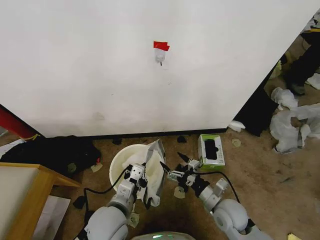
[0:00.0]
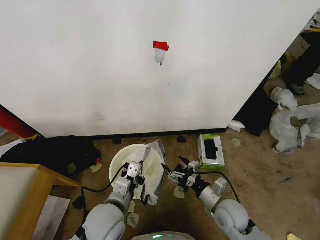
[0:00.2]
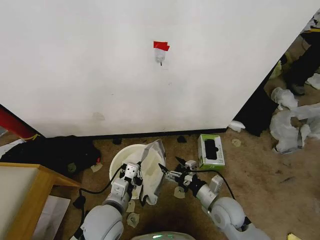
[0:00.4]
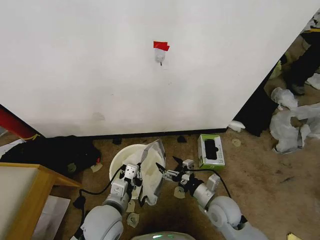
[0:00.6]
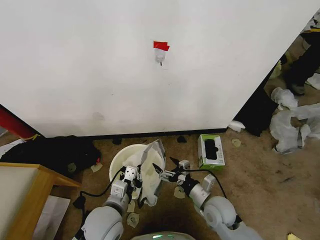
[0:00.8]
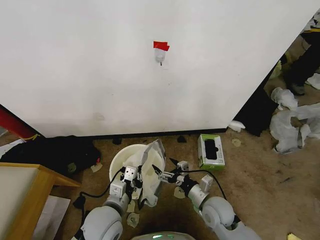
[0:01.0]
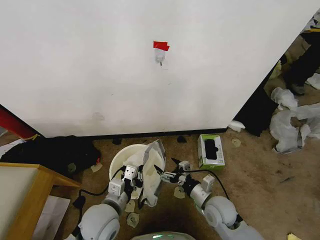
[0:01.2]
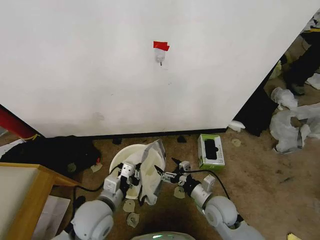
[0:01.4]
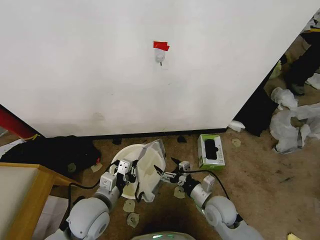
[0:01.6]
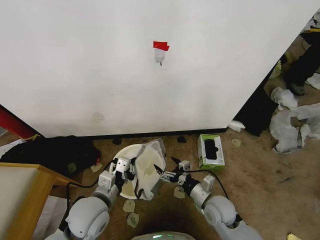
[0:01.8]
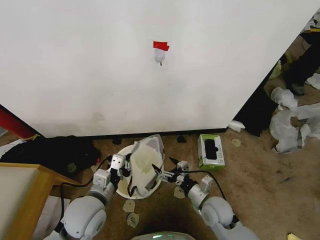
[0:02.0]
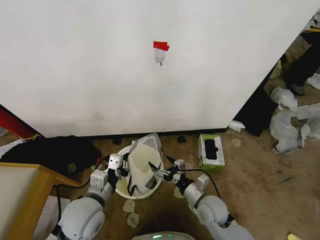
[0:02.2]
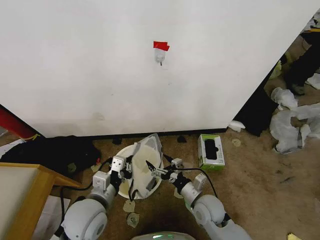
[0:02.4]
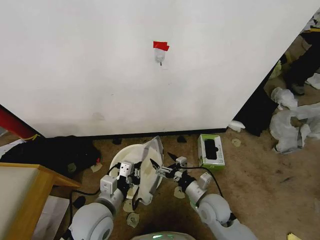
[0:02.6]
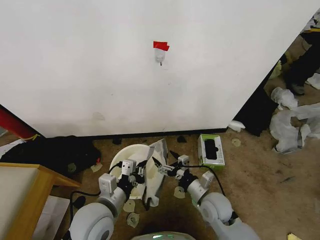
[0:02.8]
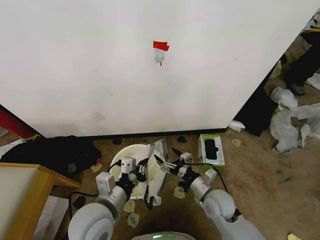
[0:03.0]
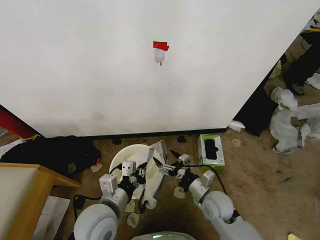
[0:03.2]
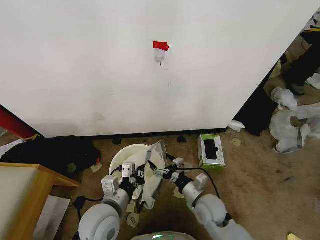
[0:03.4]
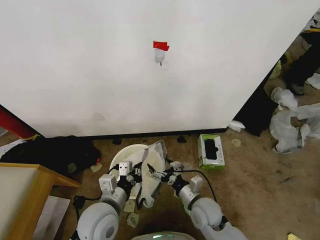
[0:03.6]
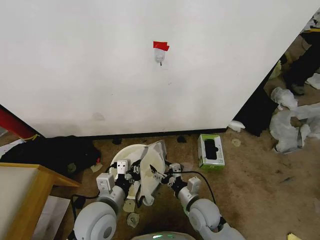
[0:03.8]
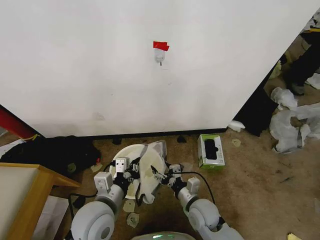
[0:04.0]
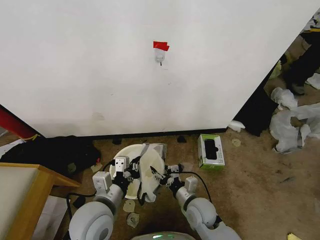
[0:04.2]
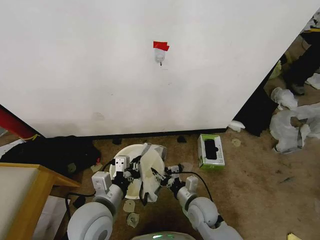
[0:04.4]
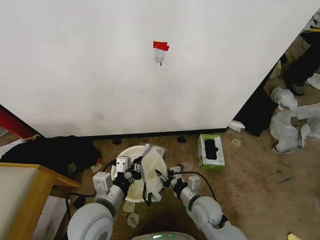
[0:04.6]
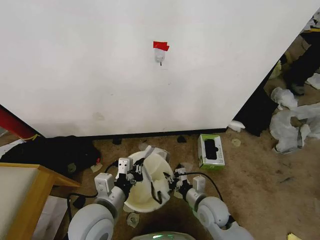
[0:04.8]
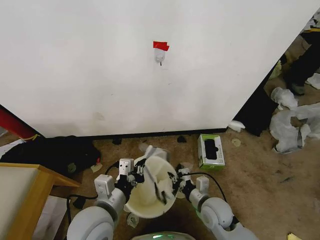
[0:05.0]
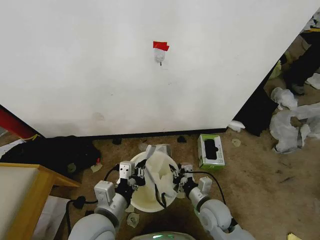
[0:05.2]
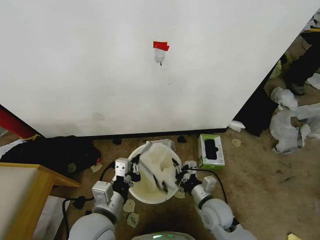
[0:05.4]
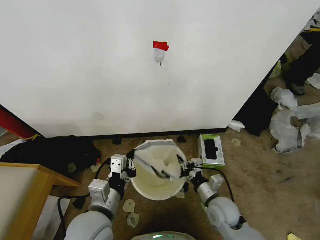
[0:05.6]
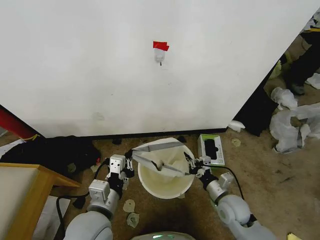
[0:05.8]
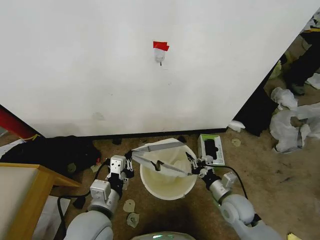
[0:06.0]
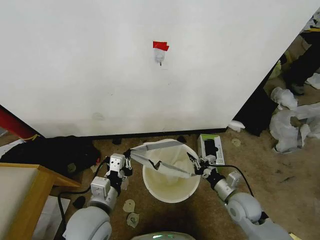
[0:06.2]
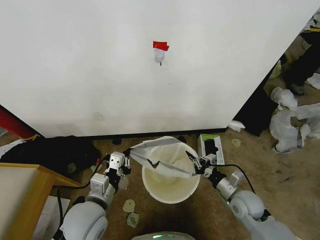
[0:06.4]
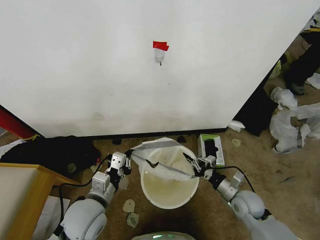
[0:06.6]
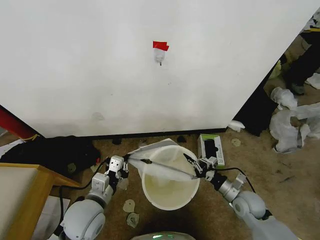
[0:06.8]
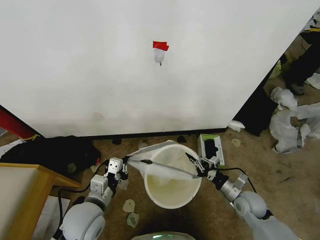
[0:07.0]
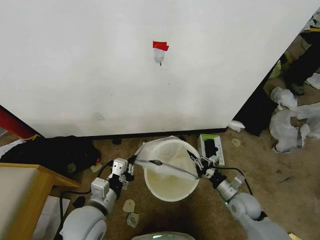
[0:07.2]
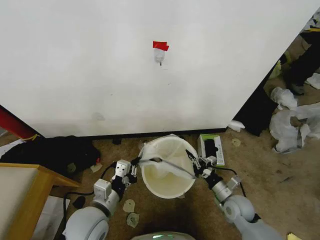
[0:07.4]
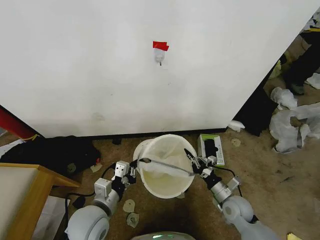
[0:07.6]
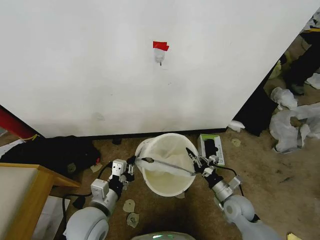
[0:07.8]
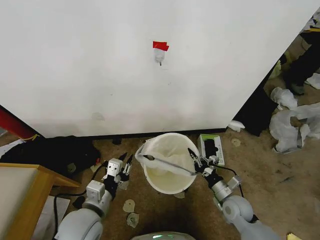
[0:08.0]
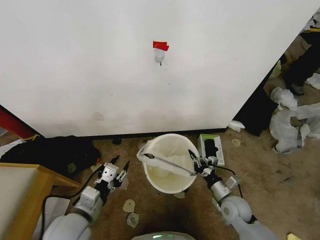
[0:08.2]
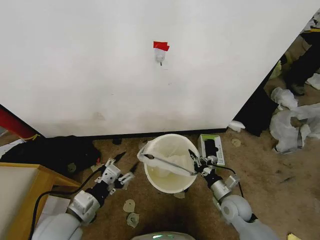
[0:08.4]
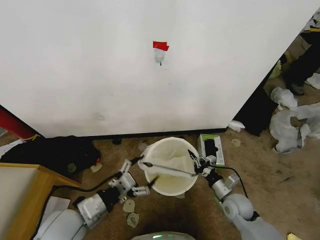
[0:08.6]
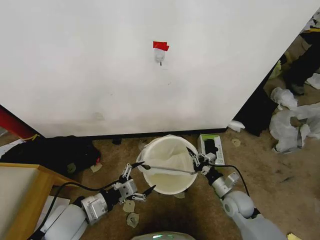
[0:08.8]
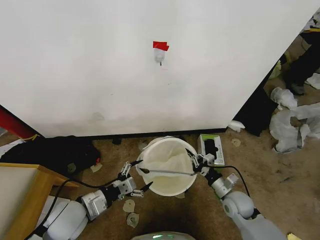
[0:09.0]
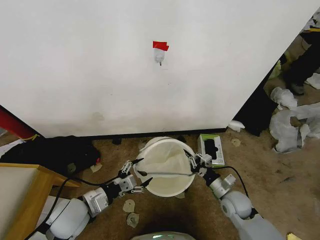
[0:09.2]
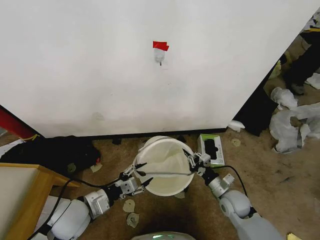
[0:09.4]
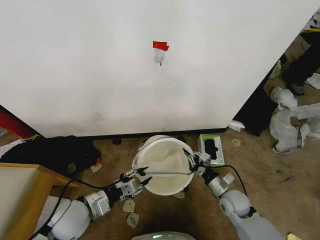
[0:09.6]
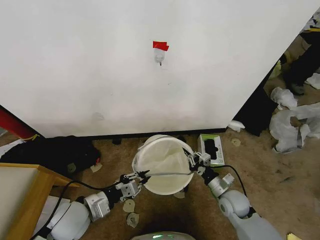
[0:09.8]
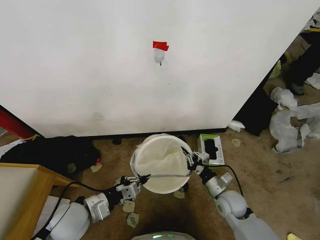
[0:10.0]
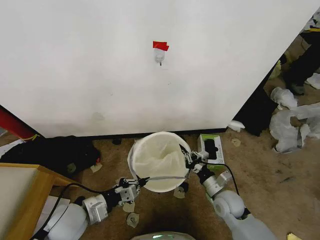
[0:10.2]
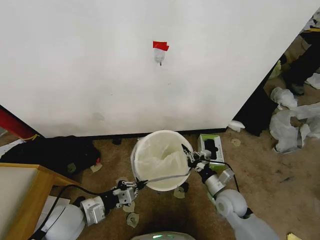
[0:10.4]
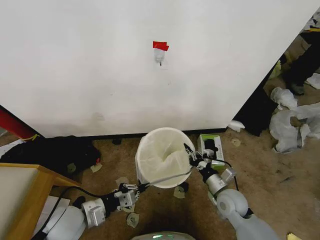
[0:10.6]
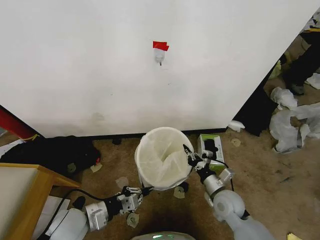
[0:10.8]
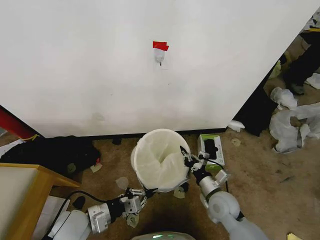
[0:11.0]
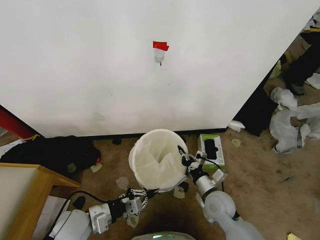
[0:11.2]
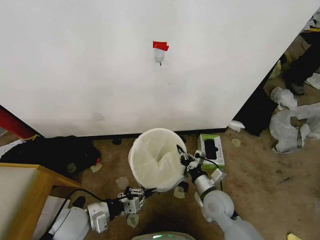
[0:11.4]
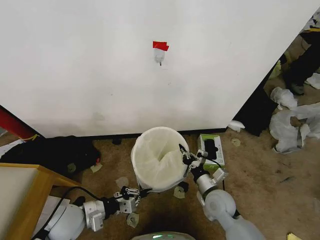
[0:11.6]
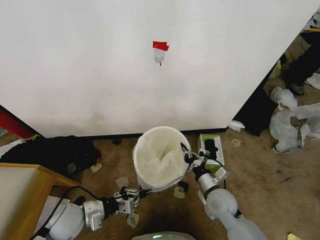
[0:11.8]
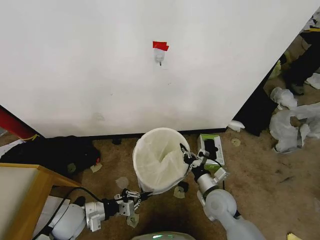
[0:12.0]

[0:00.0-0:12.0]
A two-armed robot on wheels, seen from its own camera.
Task of the whole recording: Place the garbage bag over the trash bin.
0:00.0 to 0:01.6: The left gripper moves to the left, about 5 cm.
0:01.6 to 0:03.0: The left gripper changes place by approximately 5 cm.
0:03.0 to 0:04.4: The right gripper moves some 5 cm, and closes.
0:04.4 to 0:06.0: The right gripper travels to the right by some 10 cm, and closes its fingers.
0:06.0 to 0:07.6: The left gripper changes place by about 5 cm.
0:07.6 to 0:09.0: The left gripper moves to the left, approximately 5 cm, and opens its fingers.
0:09.0 to 0:10.4: The left gripper closes its fingers.
0:10.4 to 0:12.0: The left gripper moves downward, roughly 5 cm.

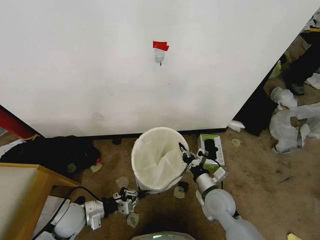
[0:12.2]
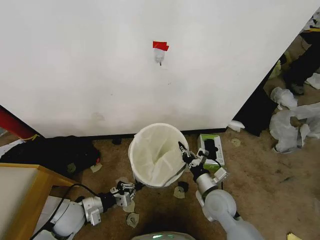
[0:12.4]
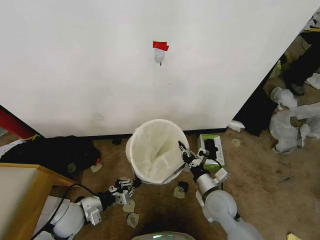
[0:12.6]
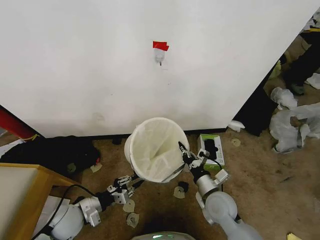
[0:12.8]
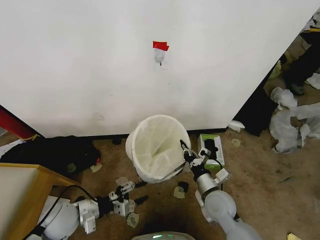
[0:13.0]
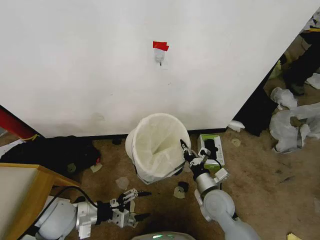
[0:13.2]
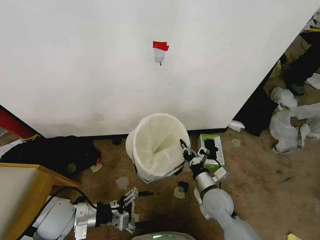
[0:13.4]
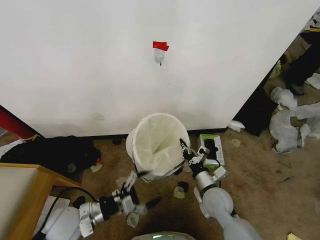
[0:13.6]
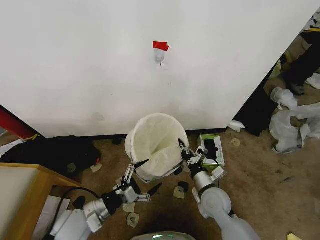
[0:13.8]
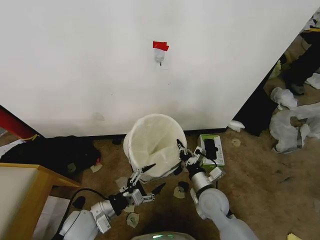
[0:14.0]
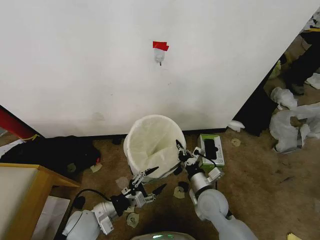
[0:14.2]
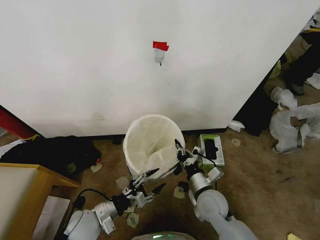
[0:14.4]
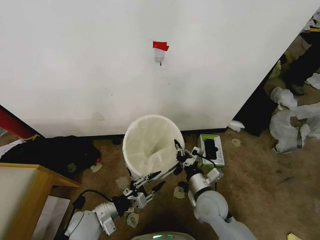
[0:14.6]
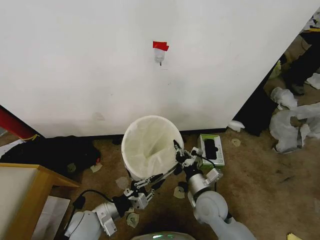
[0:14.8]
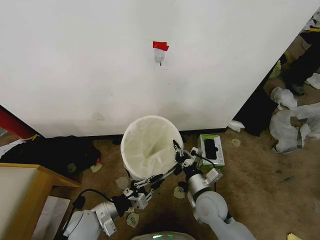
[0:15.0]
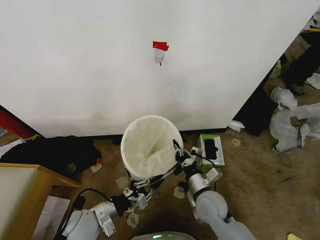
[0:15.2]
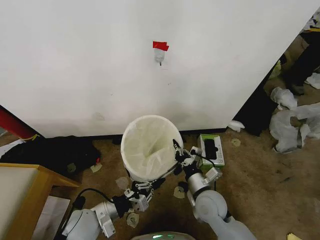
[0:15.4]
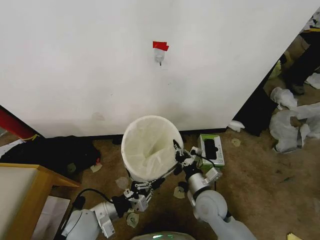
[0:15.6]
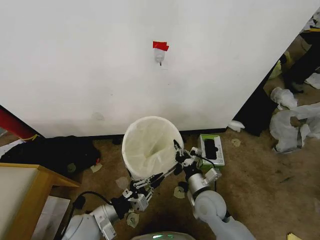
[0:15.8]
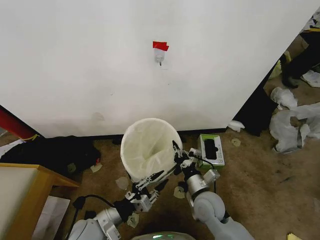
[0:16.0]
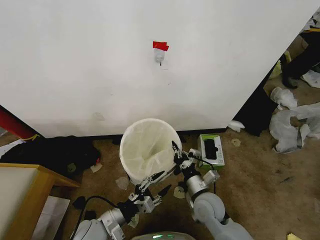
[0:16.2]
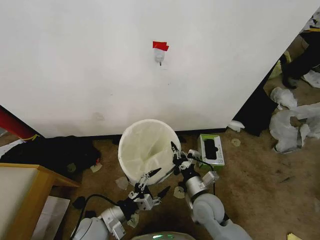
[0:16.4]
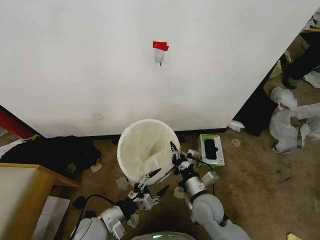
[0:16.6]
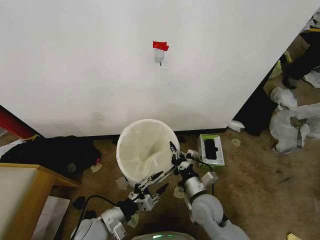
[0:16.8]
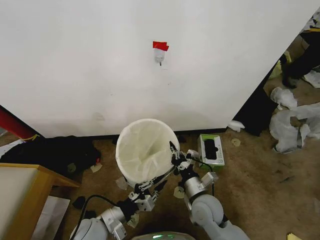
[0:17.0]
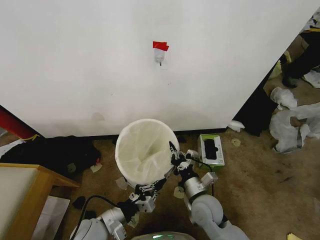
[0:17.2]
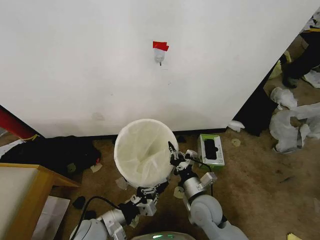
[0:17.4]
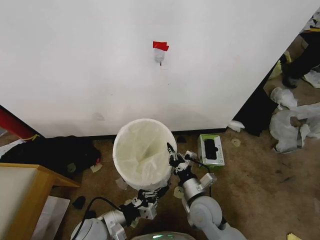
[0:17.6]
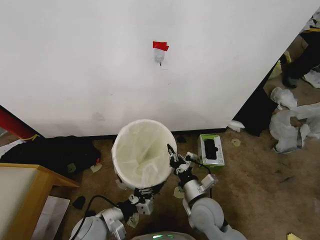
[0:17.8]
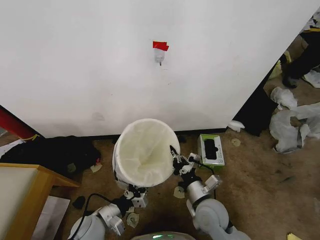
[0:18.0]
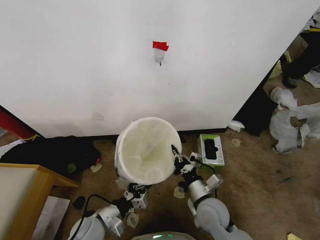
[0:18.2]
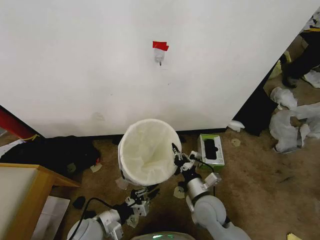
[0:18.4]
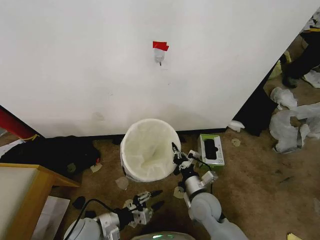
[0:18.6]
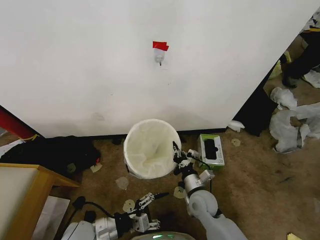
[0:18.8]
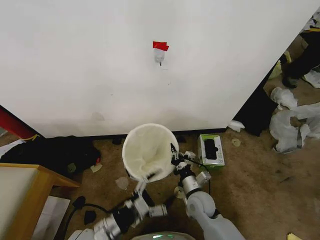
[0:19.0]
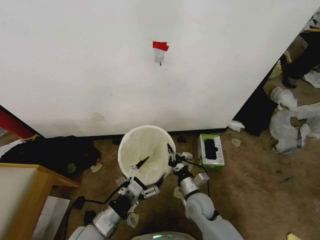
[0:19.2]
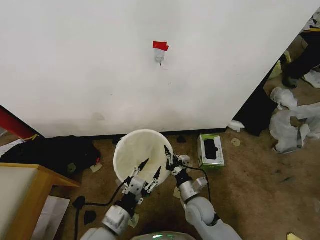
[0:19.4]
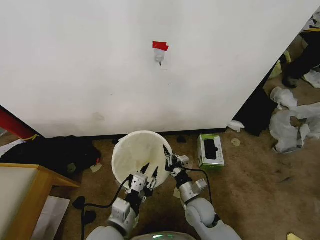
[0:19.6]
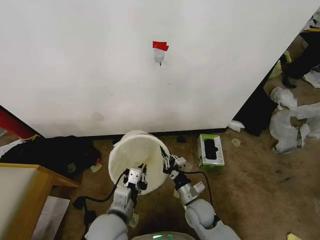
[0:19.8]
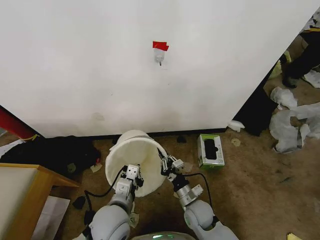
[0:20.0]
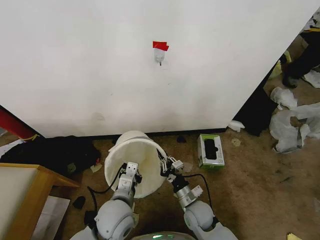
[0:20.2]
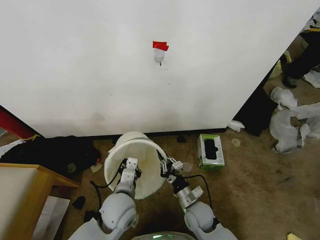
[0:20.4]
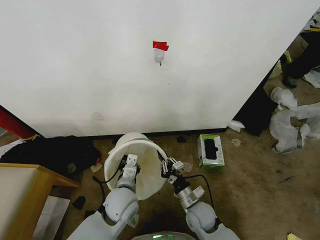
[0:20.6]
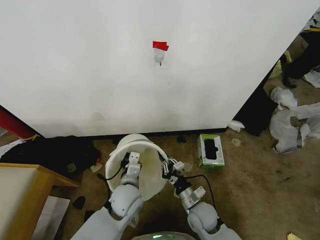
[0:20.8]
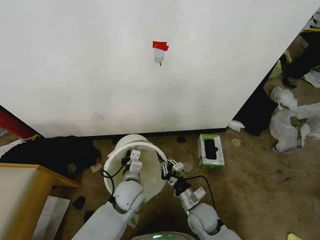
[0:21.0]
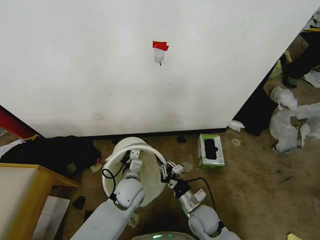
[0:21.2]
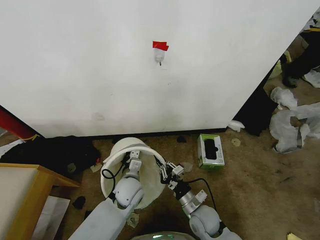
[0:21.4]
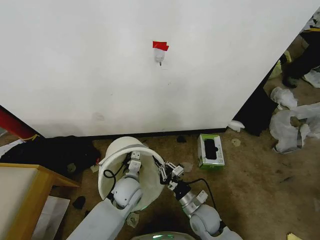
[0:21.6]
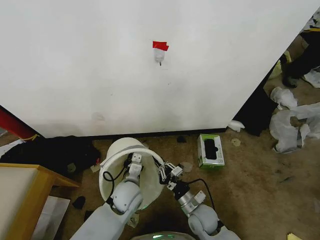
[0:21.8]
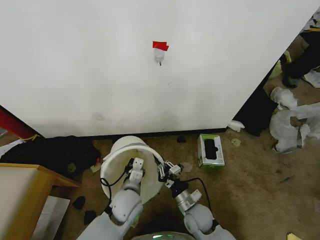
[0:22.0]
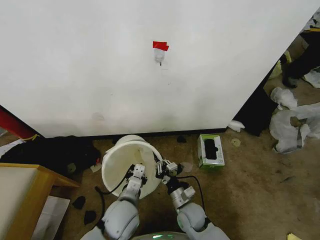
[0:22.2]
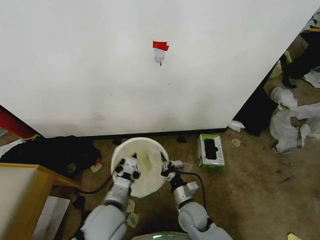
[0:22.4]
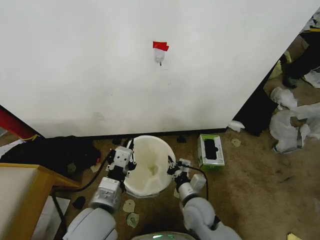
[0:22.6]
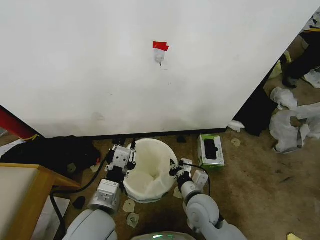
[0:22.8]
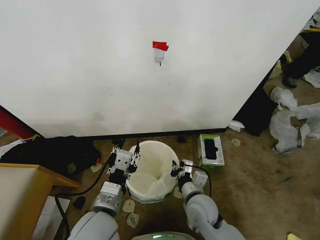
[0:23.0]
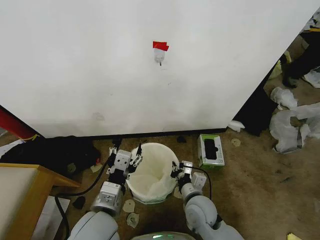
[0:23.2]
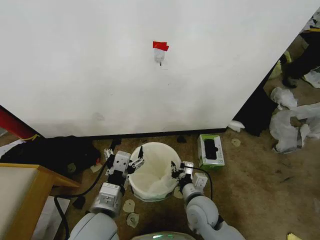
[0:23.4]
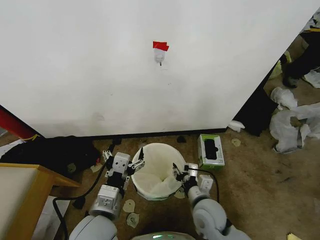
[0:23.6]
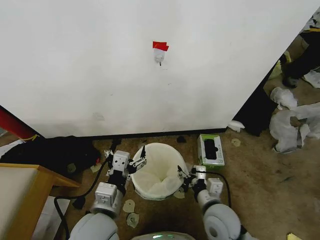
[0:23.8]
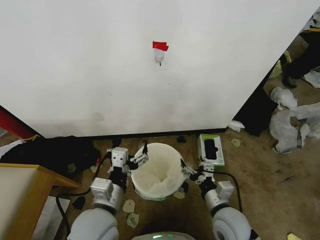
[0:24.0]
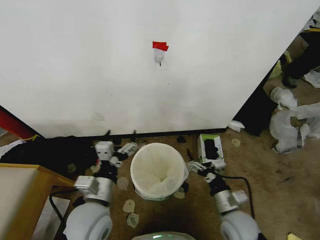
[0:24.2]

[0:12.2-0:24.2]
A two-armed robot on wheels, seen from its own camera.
Task of the whole recording: Place the garbage bag over the trash bin.
0:12.2 to 0:13.8: The left gripper moves some 5 cm, and opens its fingers.
0:13.8 to 0:15.2: The left gripper closes its fingers.
0:15.2 to 0:16.6: The left gripper opens.
0:16.6 to 0:18.2: The left gripper closes its fingers.
0:18.2 to 0:19.8: The left gripper heads upward and to the right, covering about 15 cm, and opens and closes again, while the right gripper travels downward by roughly 5 cm.
0:19.8 to 0:21.2: The left gripper travels forward and downward by some 15 cm.
0:21.2 to 0:22.6: The left gripper moves backward and upward, some 20 cm. The right gripper moves upward, about 5 cm.
0:22.6 to 0:24.2: The left gripper opens up; the right gripper is displaced to the right by about 10 cm, and opens up.
